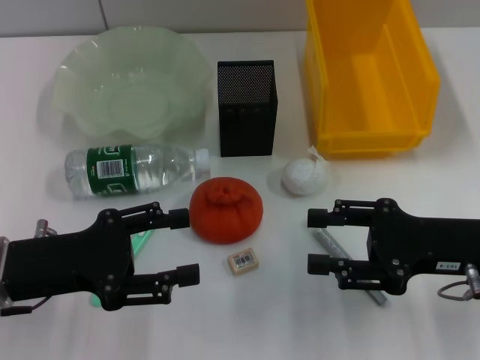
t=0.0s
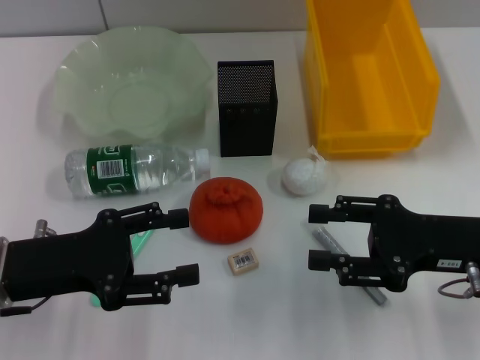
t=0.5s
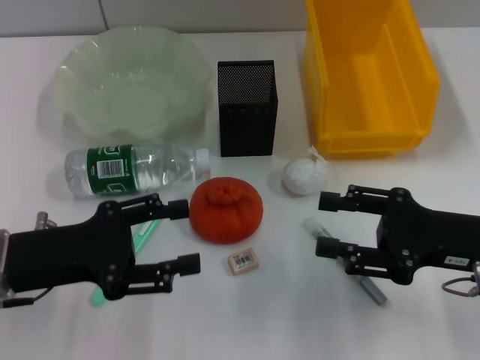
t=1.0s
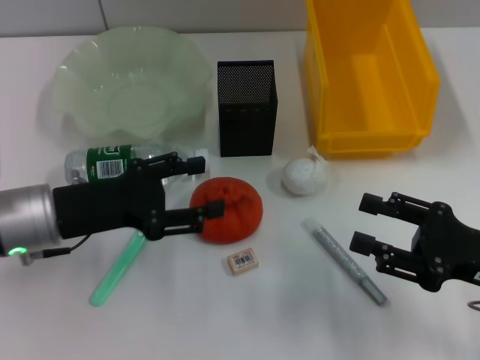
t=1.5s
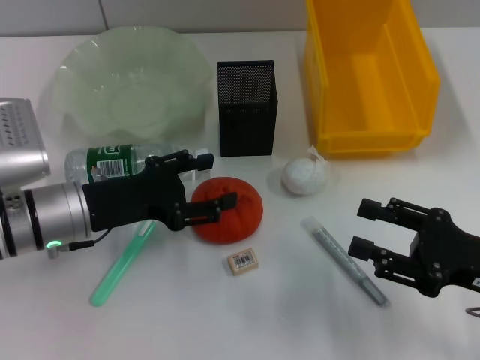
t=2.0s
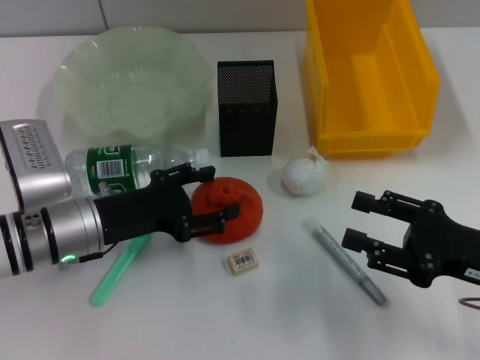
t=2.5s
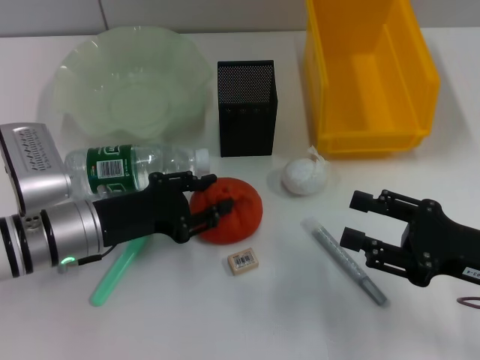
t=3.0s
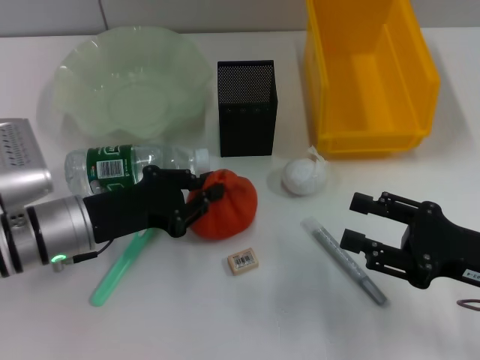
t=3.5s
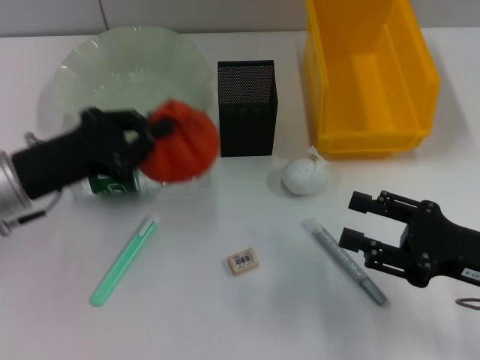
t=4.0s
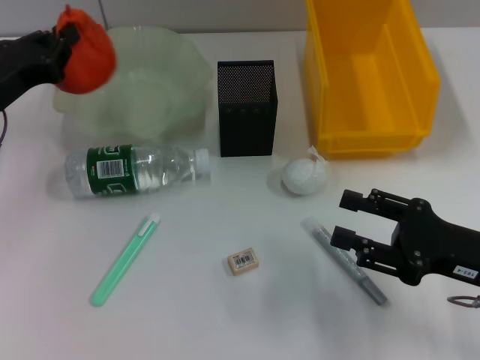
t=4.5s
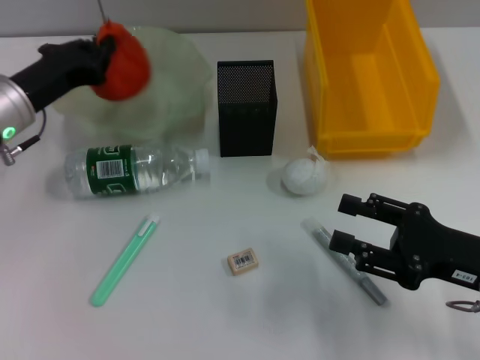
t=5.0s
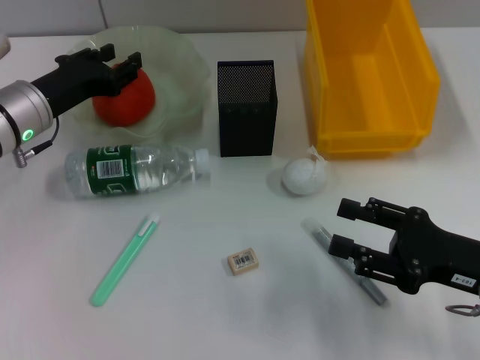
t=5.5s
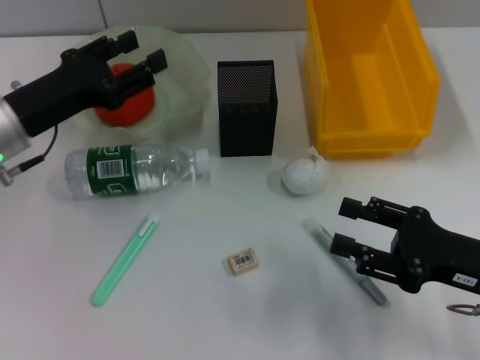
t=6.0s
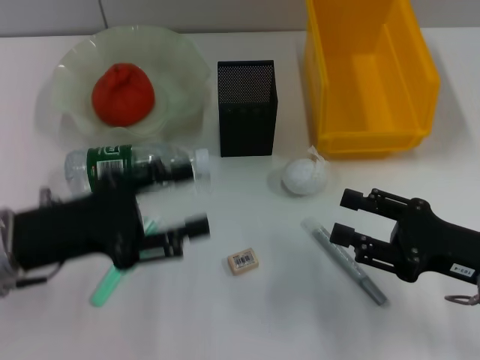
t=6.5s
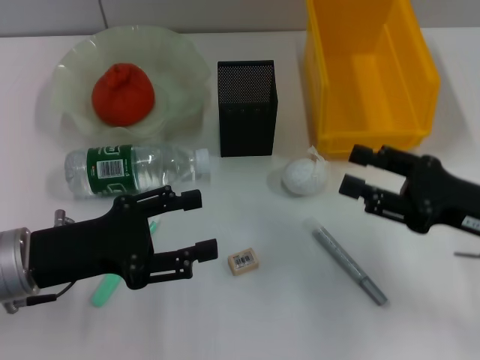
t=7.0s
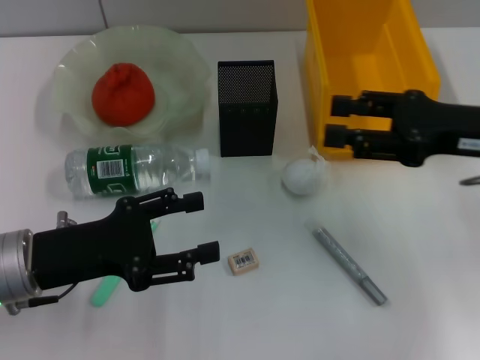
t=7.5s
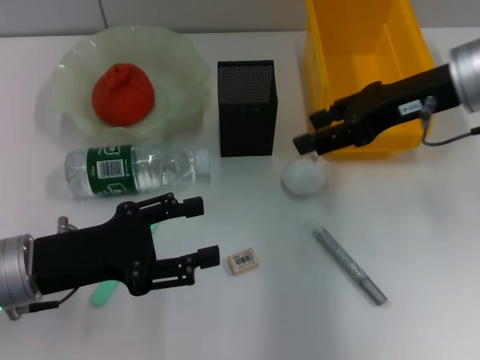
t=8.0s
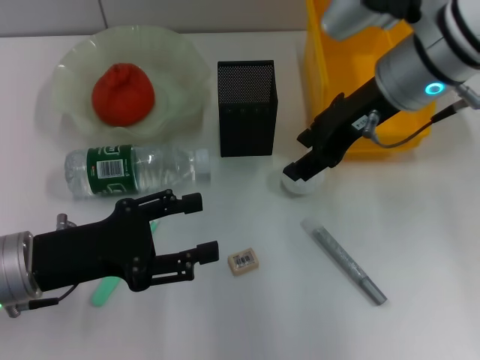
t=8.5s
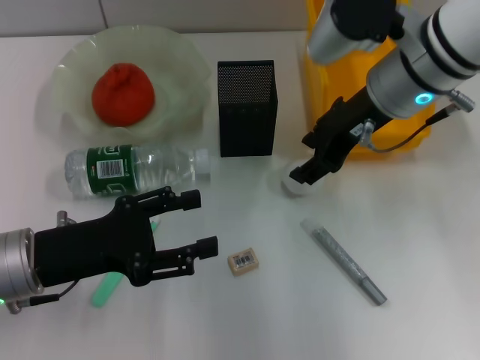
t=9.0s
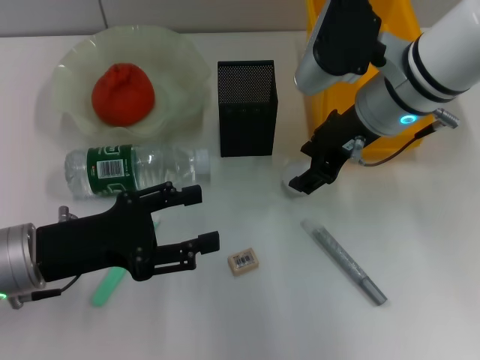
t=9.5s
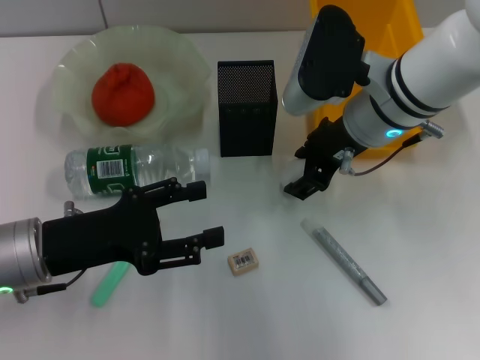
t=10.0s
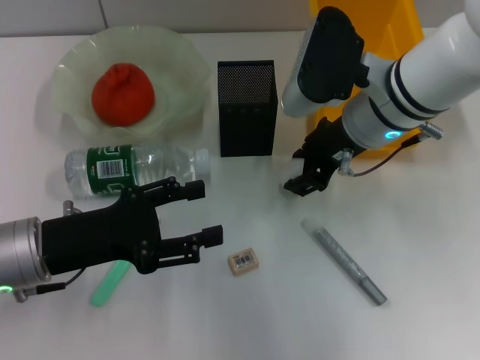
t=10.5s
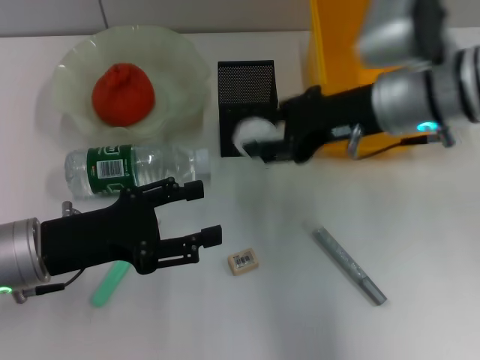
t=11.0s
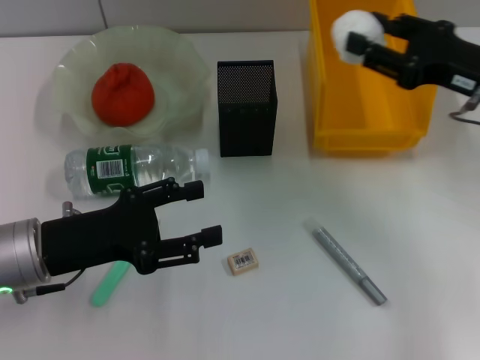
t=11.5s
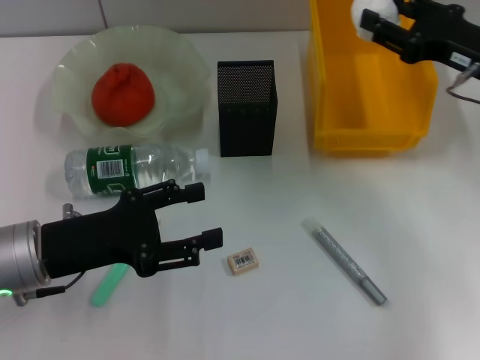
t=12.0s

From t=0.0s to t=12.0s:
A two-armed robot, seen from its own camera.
Step, from t=0.0s to t=3.0s: Grab the orange with the left hand.
Step, from t=3.5s to t=5.5s: Place the orange into the fruit bowl with the left hand.
Step, from t=6.0s to t=10.0s: Grab the paper ball with the right hand.
From t=0.0s to t=2.0s: The right gripper moves roughly 5 cm. Meanwhile the left gripper heads forward, covering some 5 cm.
From t=2.0s to t=4.0s: The left gripper closes up.
From t=4.0s to t=6.0s: The left gripper opens its fingers.
From t=6.0s to t=8.0s: The right gripper shifts approximately 20 cm forward, upward and to the left. The left gripper travels backward by roughly 10 cm.
From t=8.0s to t=10.0s: The right gripper moves to the left and downward, approximately 10 cm.
From t=10.0s to t=12.0s: The right gripper heads to the right, covering roughly 15 cm.

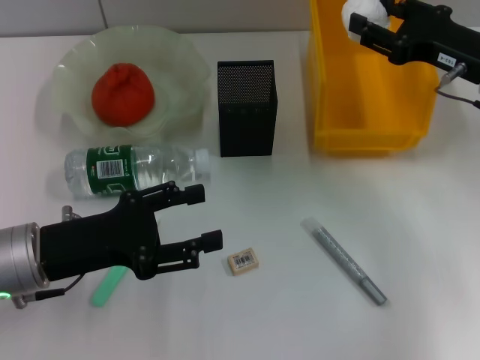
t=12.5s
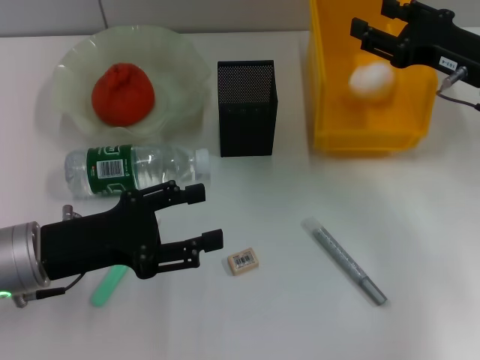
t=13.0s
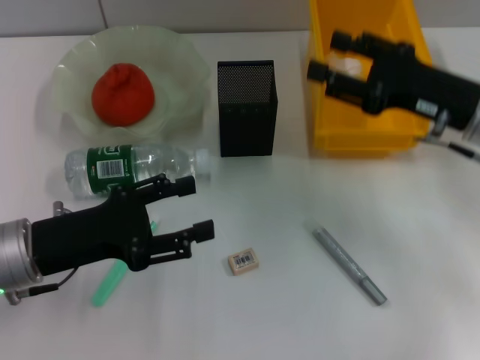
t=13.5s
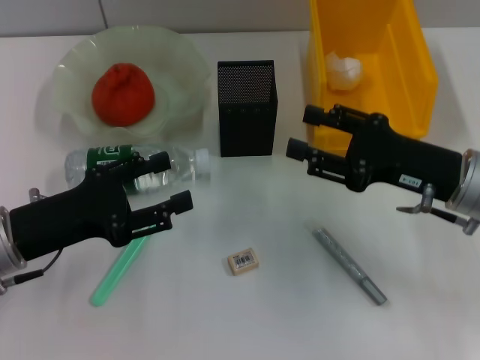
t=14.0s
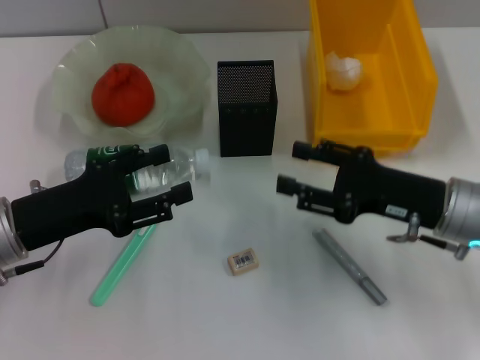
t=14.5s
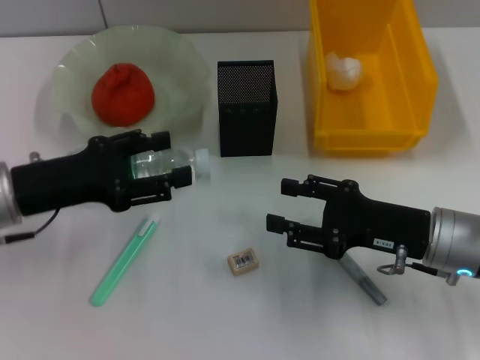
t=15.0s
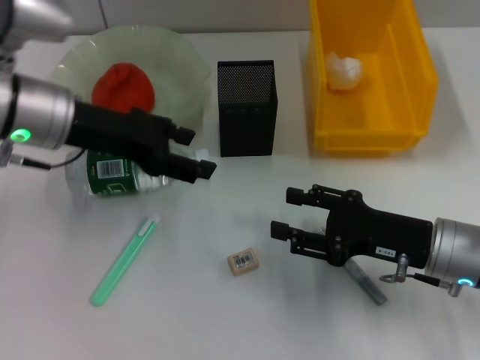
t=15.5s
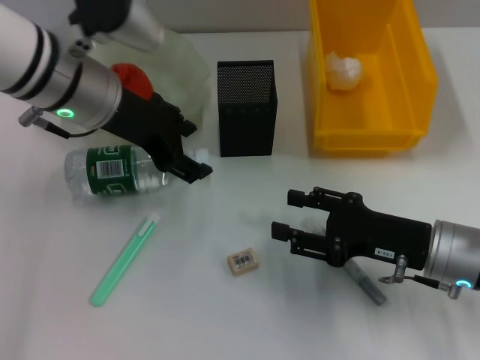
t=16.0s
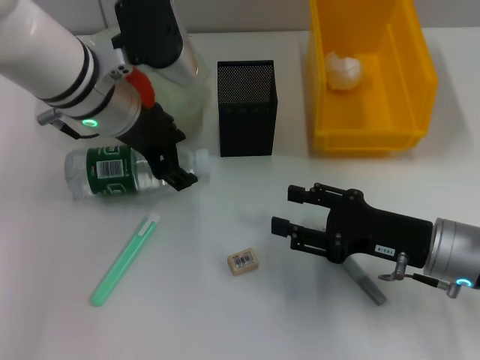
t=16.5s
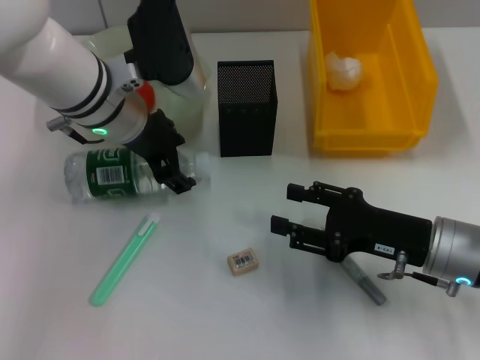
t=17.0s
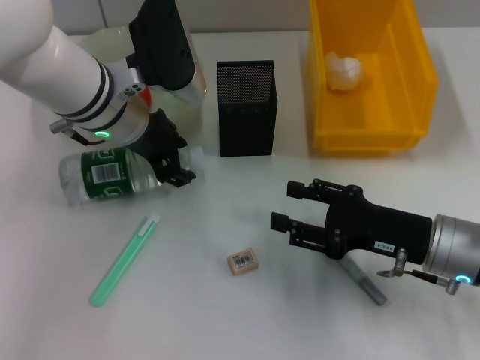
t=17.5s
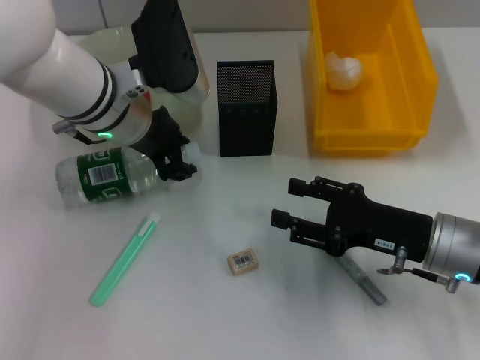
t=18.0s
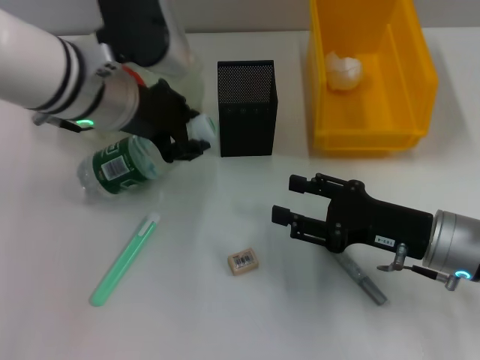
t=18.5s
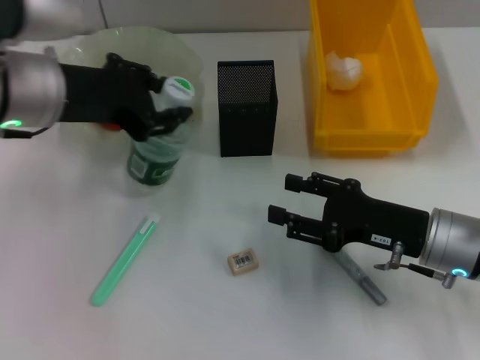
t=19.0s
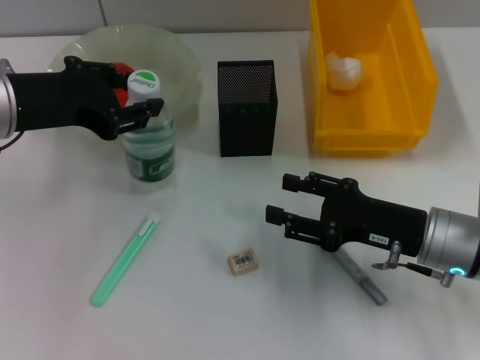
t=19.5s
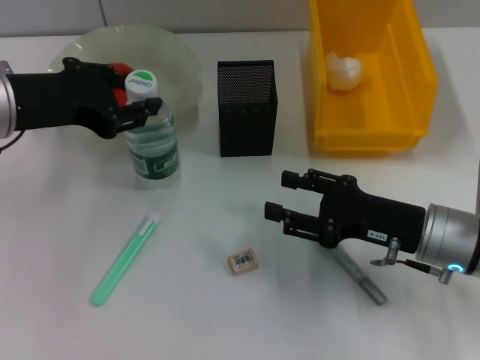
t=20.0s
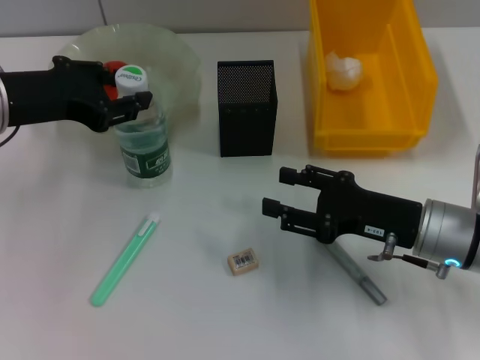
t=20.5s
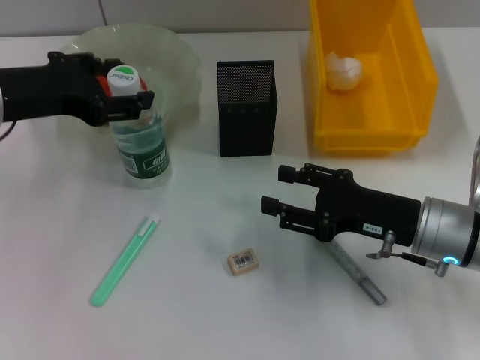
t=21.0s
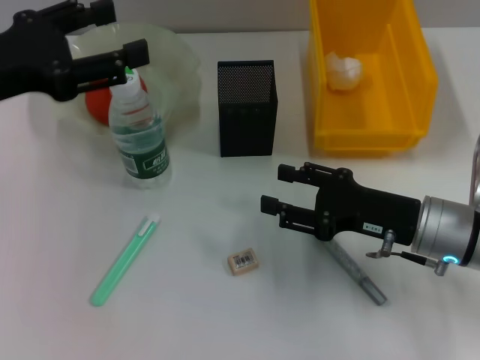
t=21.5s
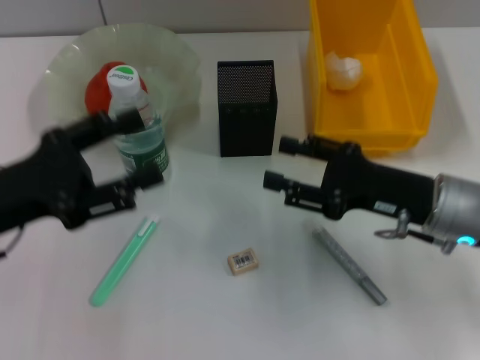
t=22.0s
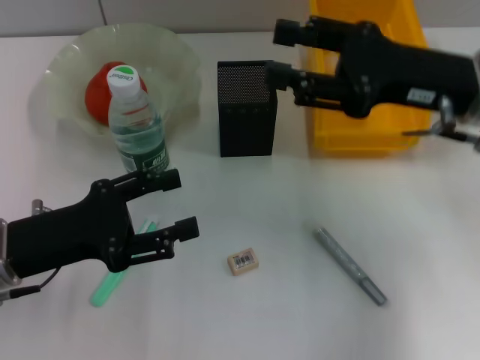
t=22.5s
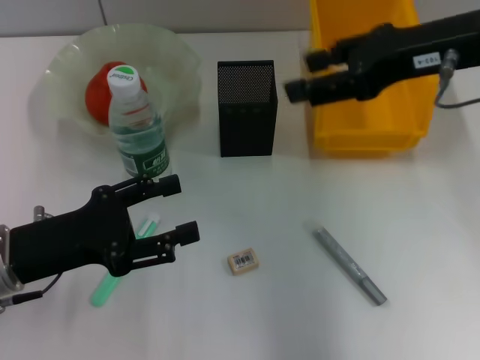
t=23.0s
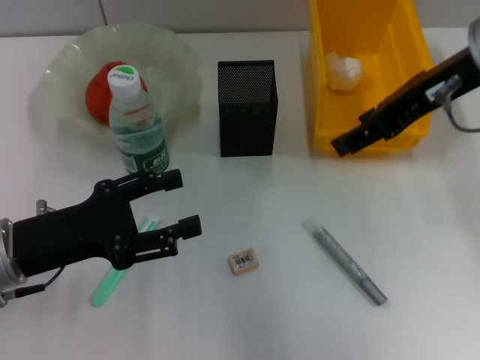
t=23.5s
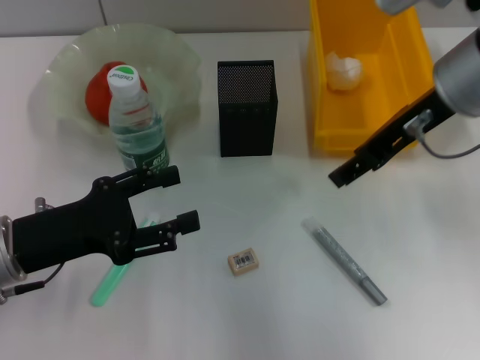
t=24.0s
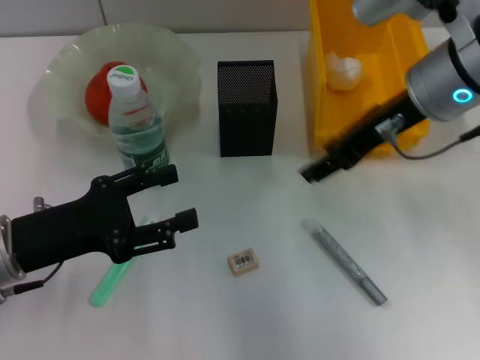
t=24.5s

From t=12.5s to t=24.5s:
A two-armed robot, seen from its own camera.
Step, from t=13.5s to t=17.5s: Grab the water bottle with the left hand.
Step, from t=18.0s to t=21.0s: Place the water bottle on the table with the left hand.
From t=12.5s to t=14.5s: The right gripper shifts approximately 10 cm backward and downward.
From t=14.5s to t=16.5s: The left gripper travels forward, to the right and upward by about 20 cm.
From t=16.5s to t=18.5s: The left gripper closes up.
From t=18.5s to t=20.5s: The left gripper goes about 10 cm to the left.
From t=20.5s to t=22.5s: The left gripper goes some 15 cm downward and backward, and opens up, while the right gripper is displaced upward by about 15 cm.
From t=22.5s to t=24.5s: The right gripper travels upward and back again, some 10 cm each way.

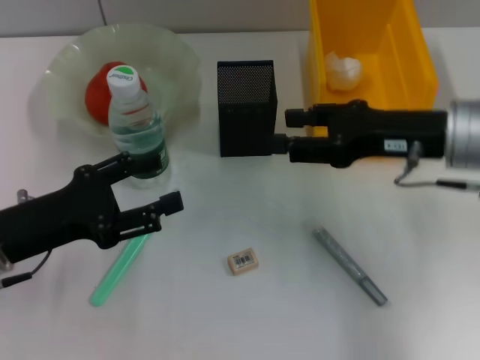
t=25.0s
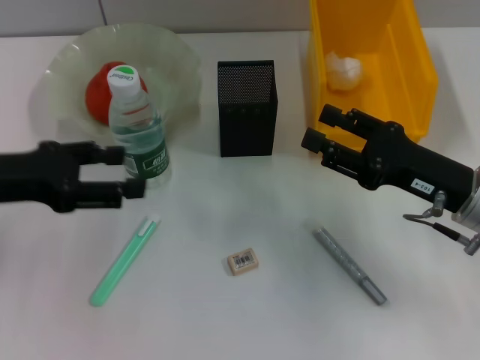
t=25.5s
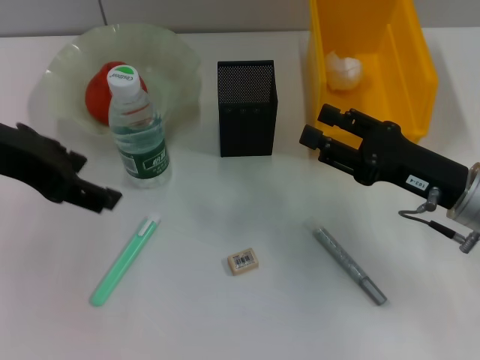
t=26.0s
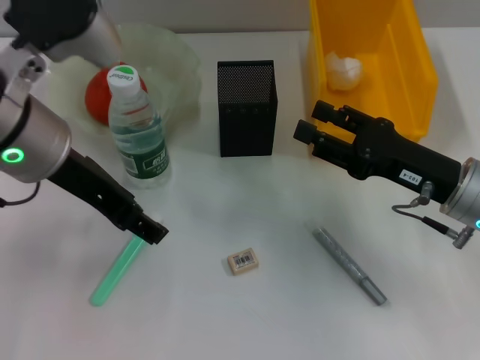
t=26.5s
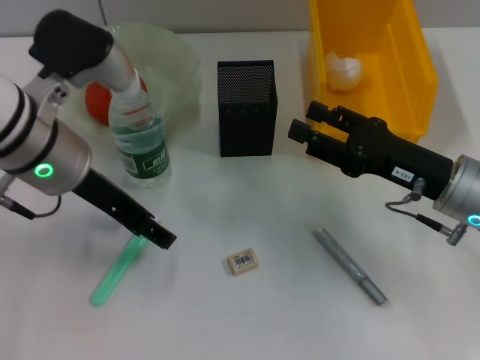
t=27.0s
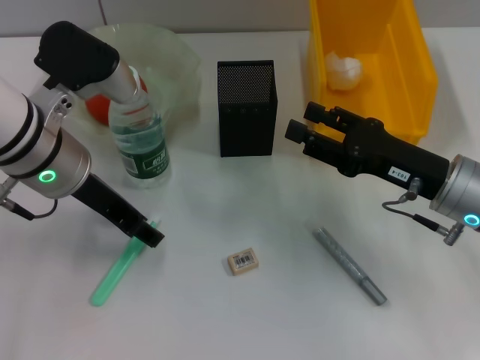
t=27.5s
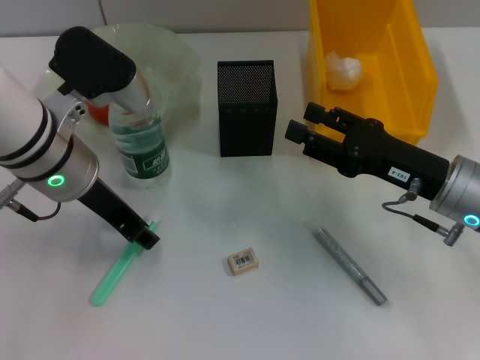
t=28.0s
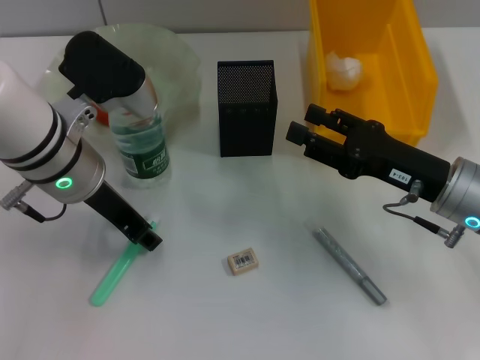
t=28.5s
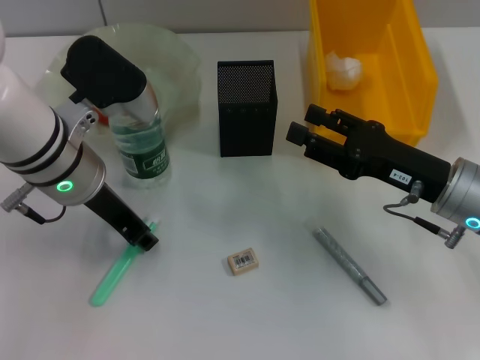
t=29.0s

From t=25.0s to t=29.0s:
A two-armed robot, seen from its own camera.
From t=25.0s to t=27.0s: The right gripper moves downward, some 10 cm; the left gripper moves to the right, upward and forward, roughly 15 cm.
From t=27.0s to t=29.0s: The grippers make only small movements.
